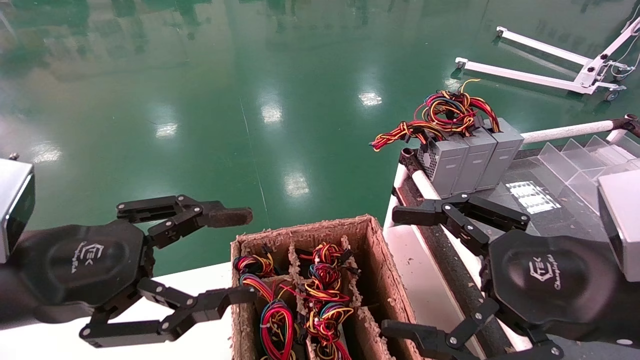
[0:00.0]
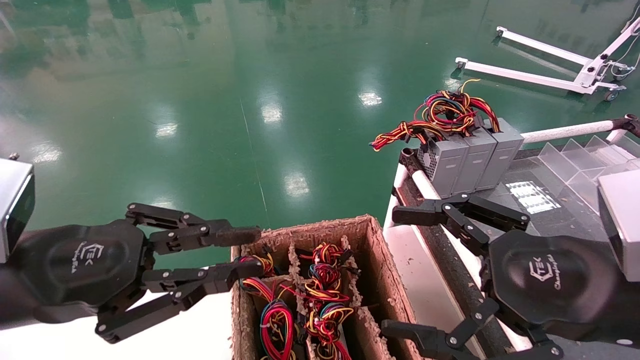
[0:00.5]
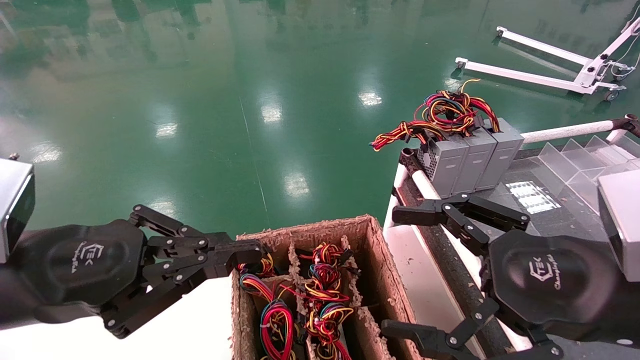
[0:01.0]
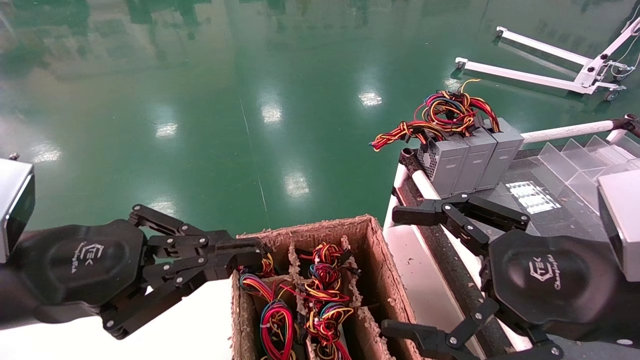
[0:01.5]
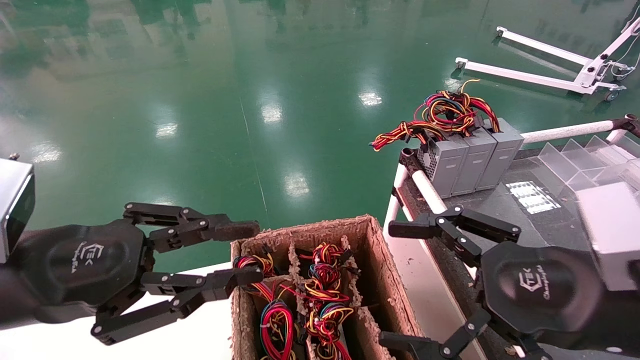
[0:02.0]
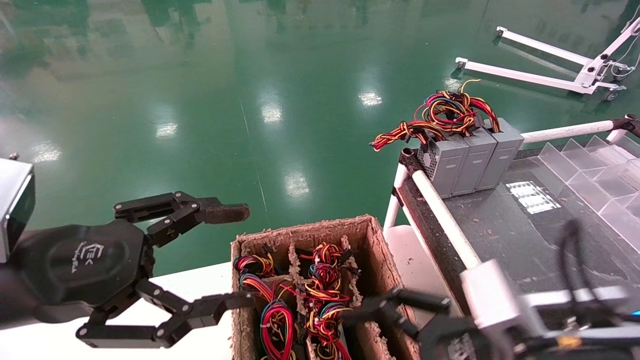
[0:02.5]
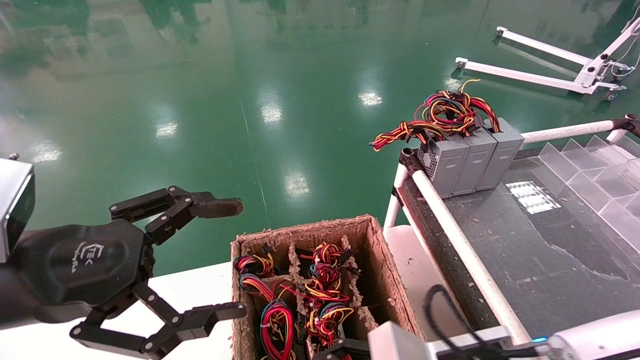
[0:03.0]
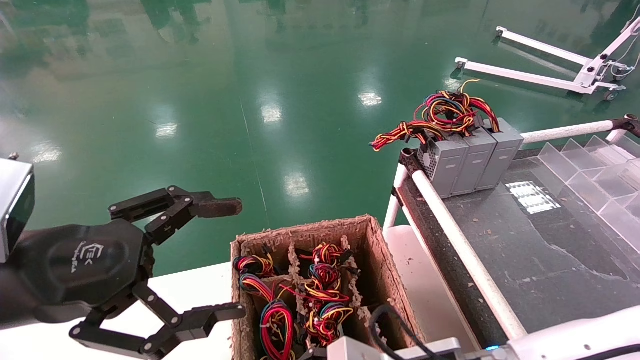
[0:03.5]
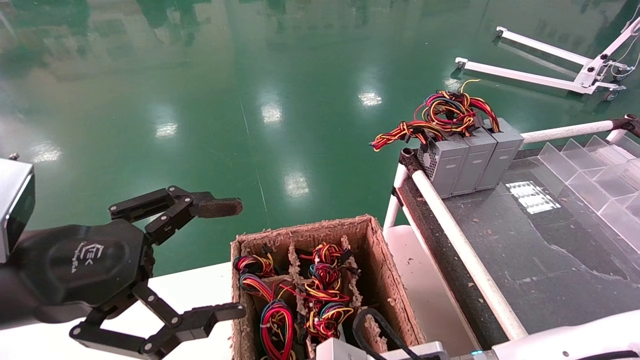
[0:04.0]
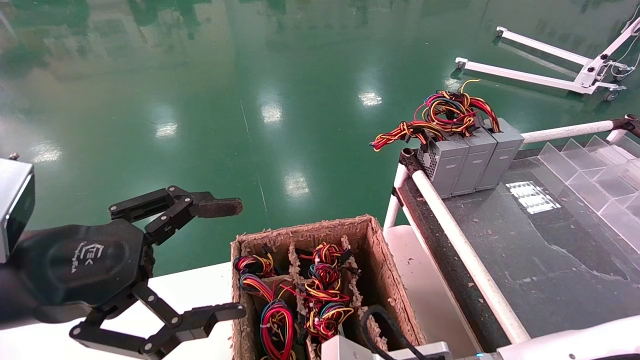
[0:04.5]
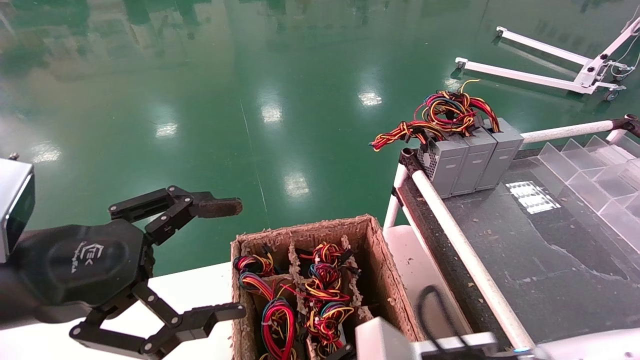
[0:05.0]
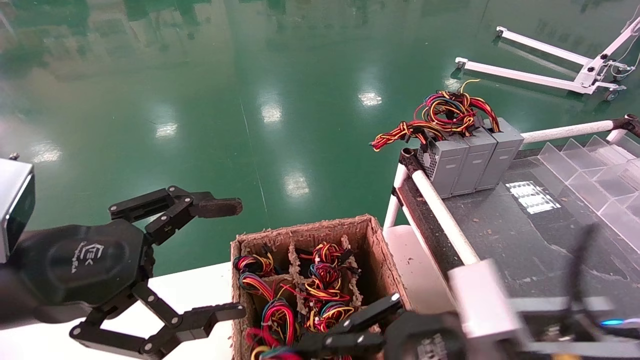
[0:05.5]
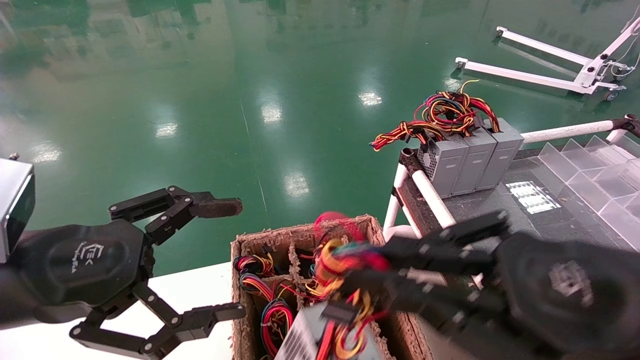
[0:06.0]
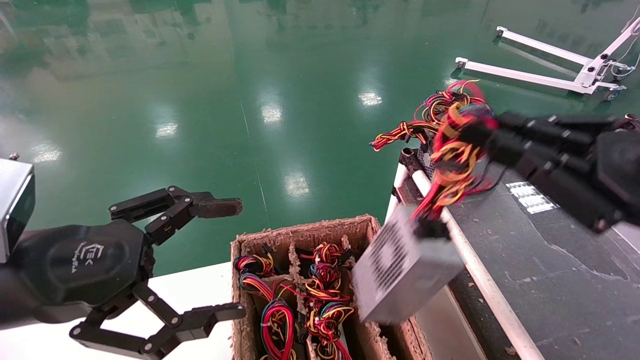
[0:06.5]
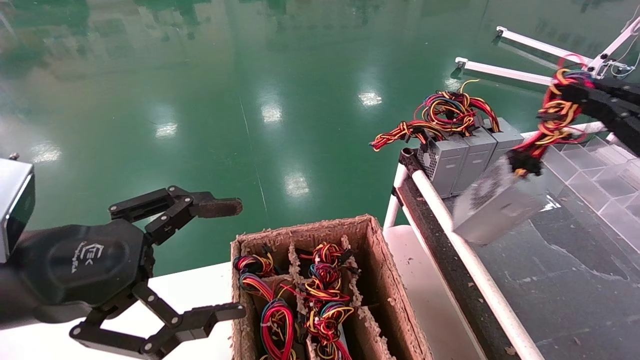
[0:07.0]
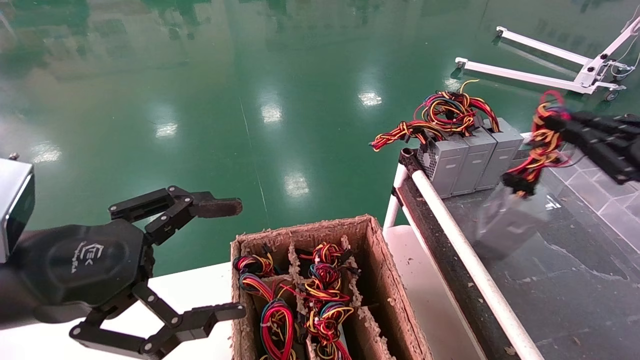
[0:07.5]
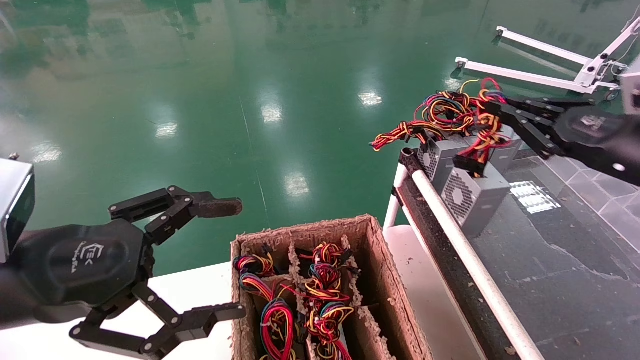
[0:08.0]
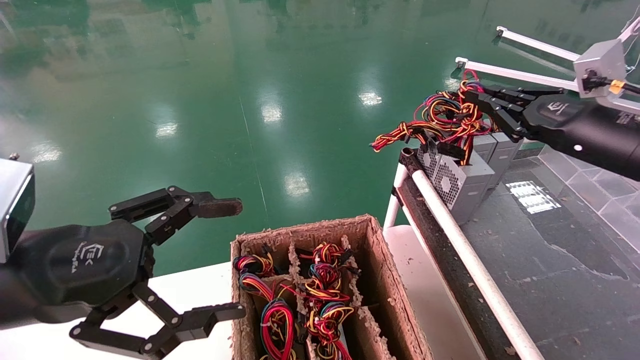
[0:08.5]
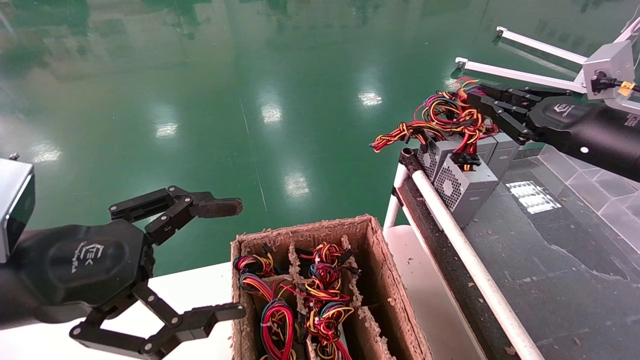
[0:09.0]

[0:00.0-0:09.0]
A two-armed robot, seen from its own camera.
Step, 0:01.0 to 0:05.0: Grab and lift the power supply from the large box.
Step, 0:05.5 to 0:08.5: Place the power supply on the operating table.
0:00.0 to 0:02.0: The left gripper closes its fingers.
0:02.0 to 0:04.5: The right gripper heads downward and to the left, covering roughly 20 cm, and closes its fingers. The left gripper opens.
0:04.5 to 0:07.0: The right gripper moves to the right and upward, roughly 35 cm.
0:07.0 to 0:09.0: The right gripper shifts some 10 cm forward.

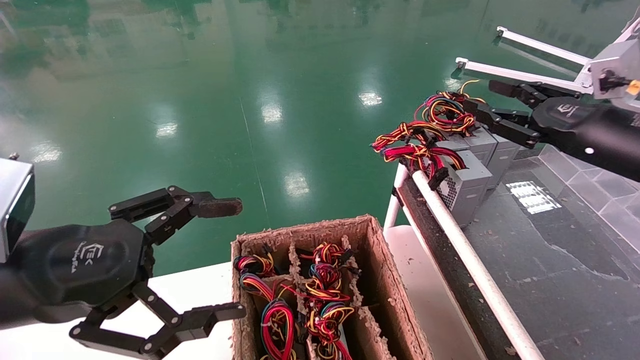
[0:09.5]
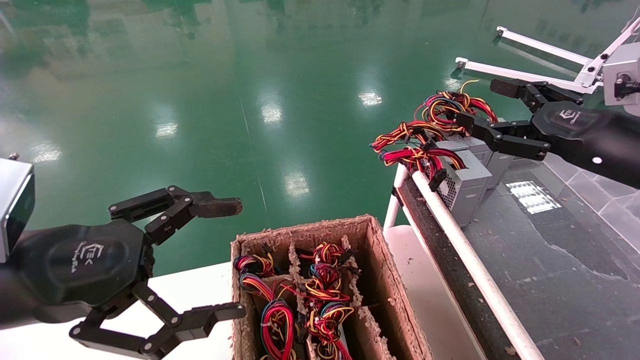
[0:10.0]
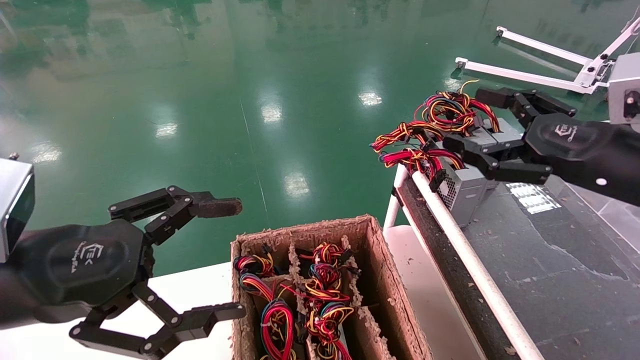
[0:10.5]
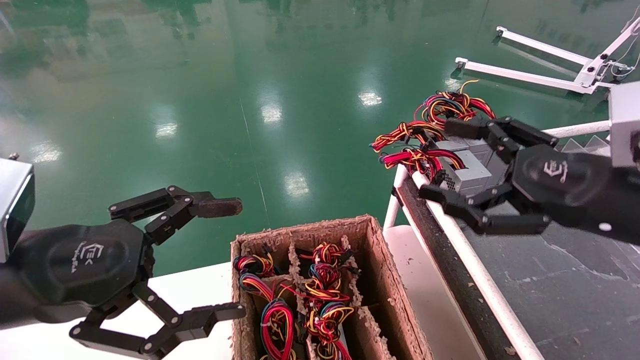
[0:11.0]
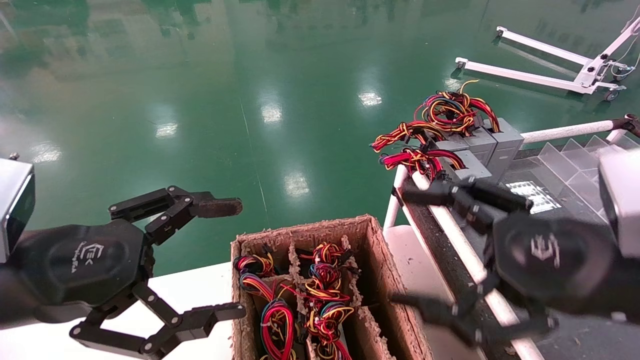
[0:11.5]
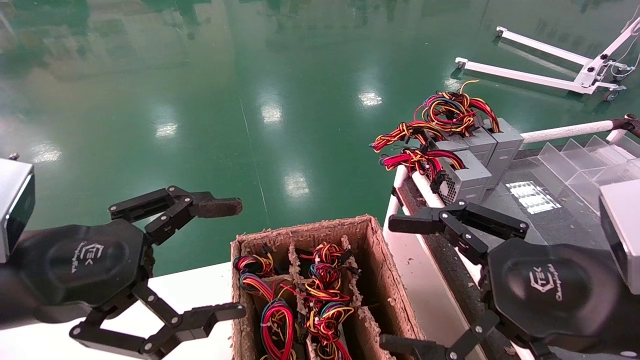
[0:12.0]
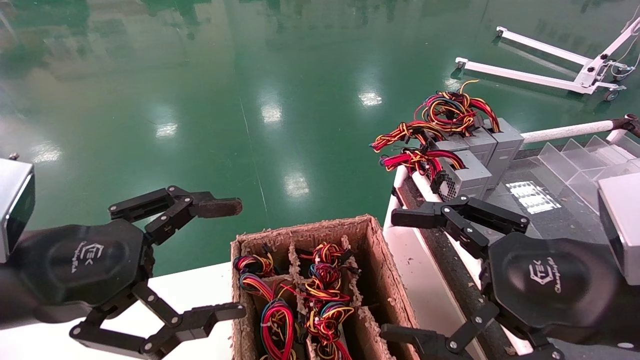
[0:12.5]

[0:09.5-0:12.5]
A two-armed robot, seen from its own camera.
0:09.5 to 0:11.0: The right gripper travels backward and to the left by approximately 10 cm, and opens.
0:11.0 to 0:12.5: The right gripper moves backward, approximately 5 cm.

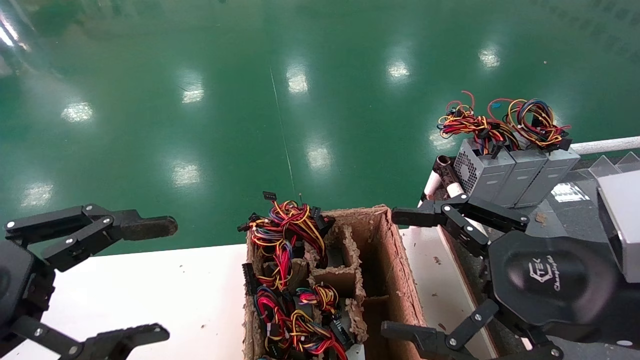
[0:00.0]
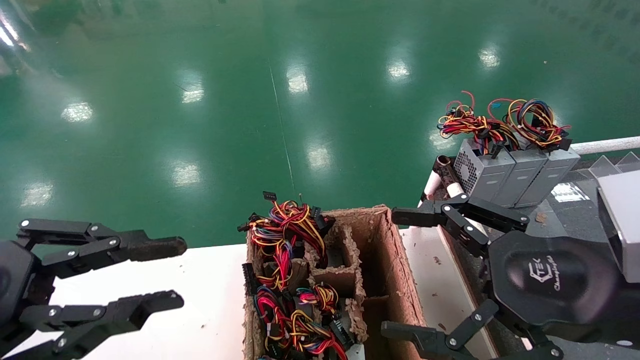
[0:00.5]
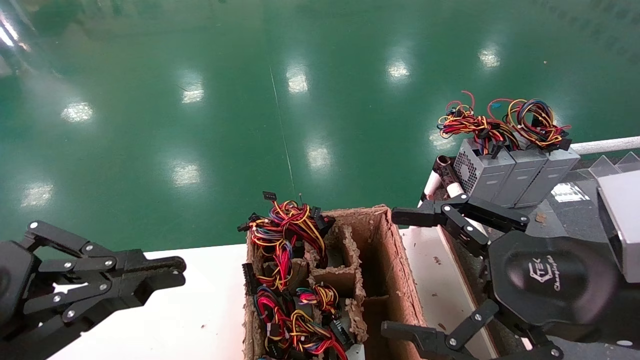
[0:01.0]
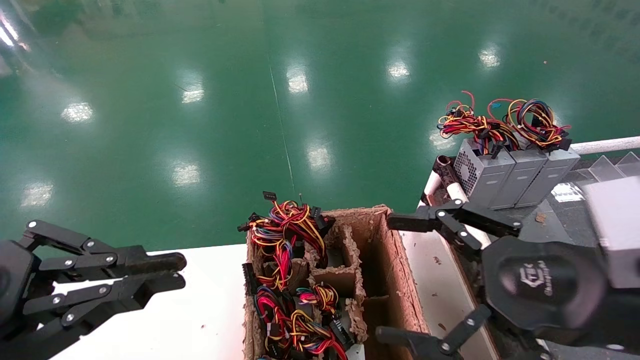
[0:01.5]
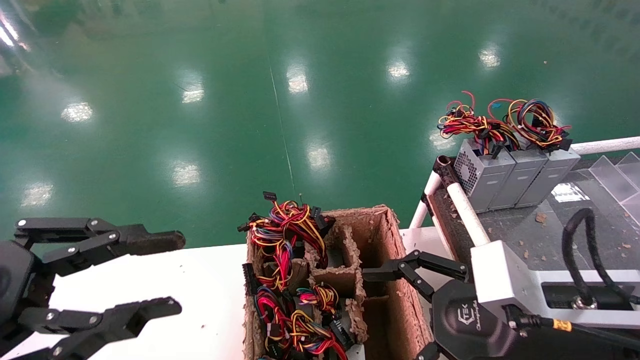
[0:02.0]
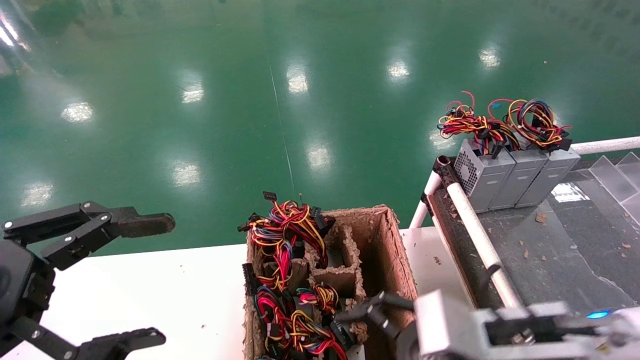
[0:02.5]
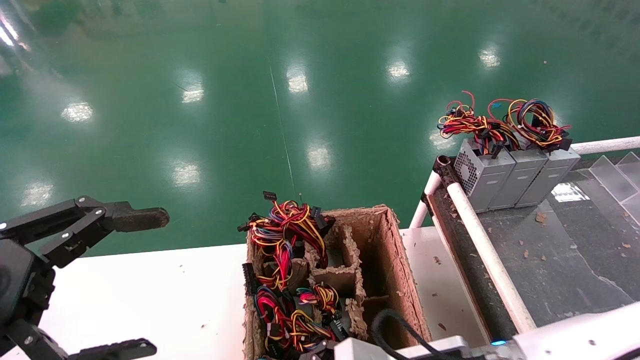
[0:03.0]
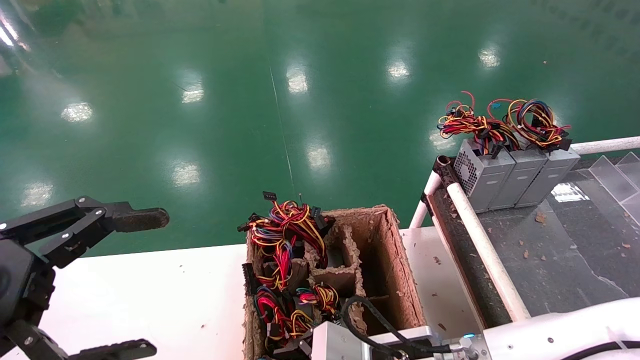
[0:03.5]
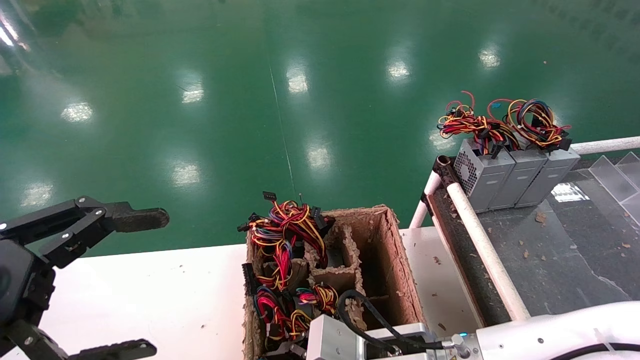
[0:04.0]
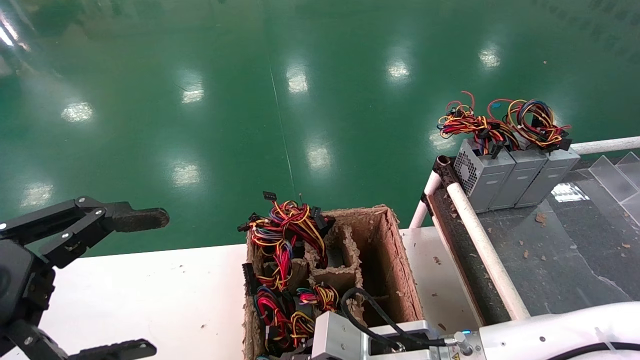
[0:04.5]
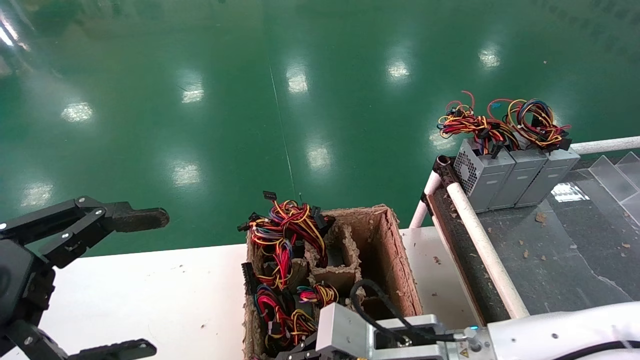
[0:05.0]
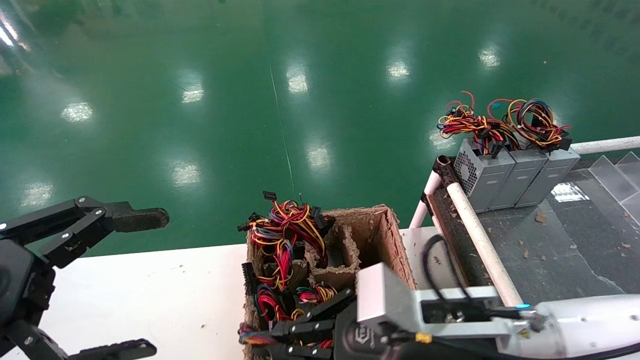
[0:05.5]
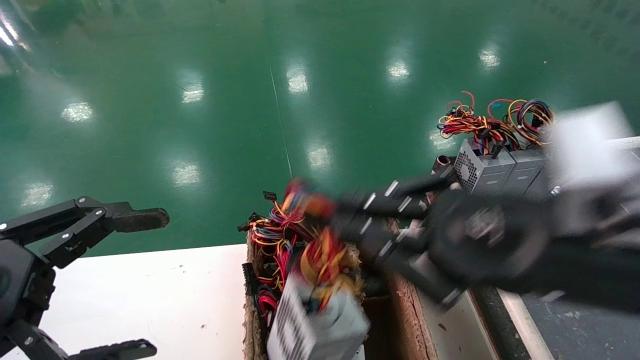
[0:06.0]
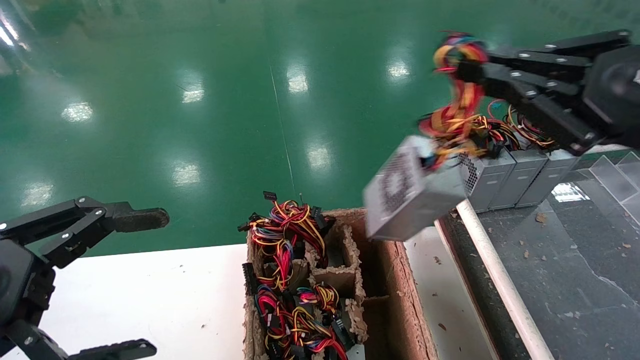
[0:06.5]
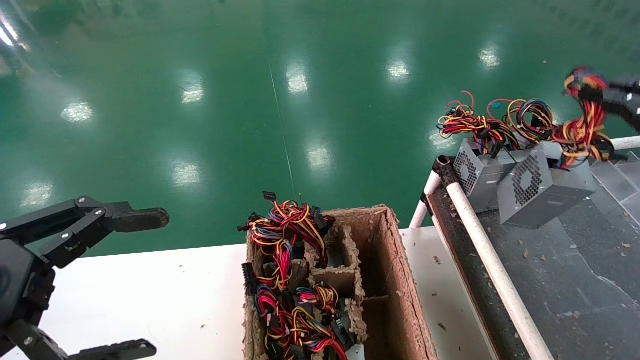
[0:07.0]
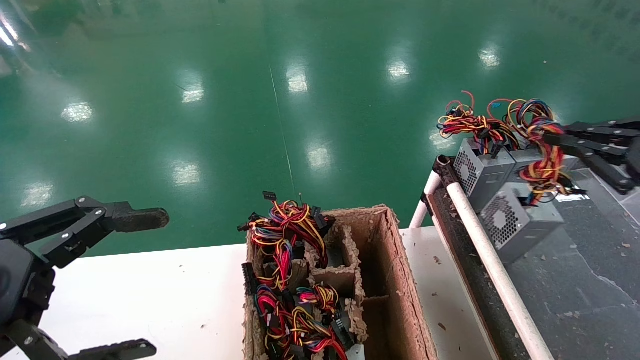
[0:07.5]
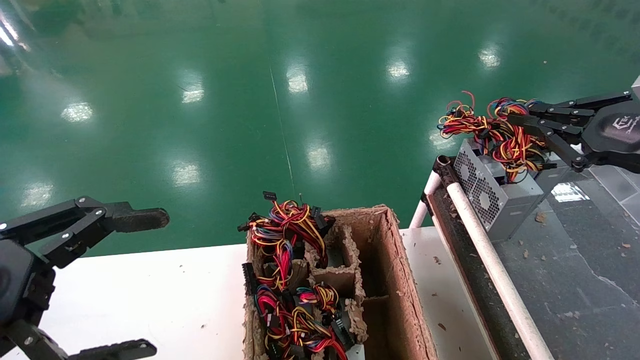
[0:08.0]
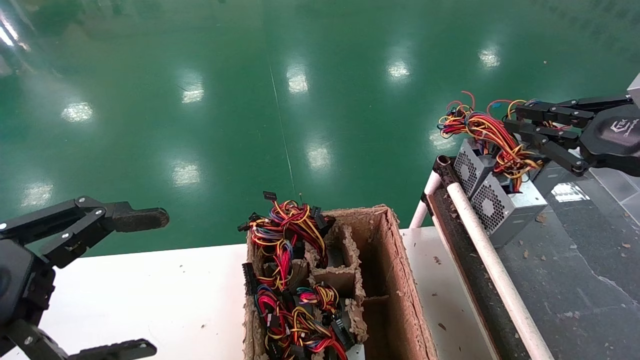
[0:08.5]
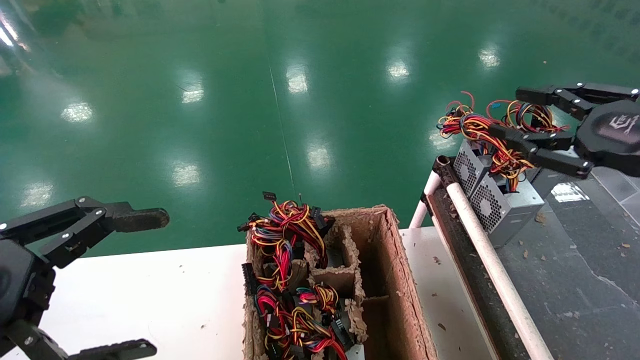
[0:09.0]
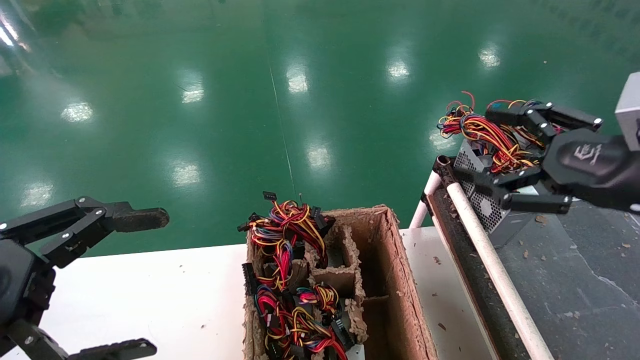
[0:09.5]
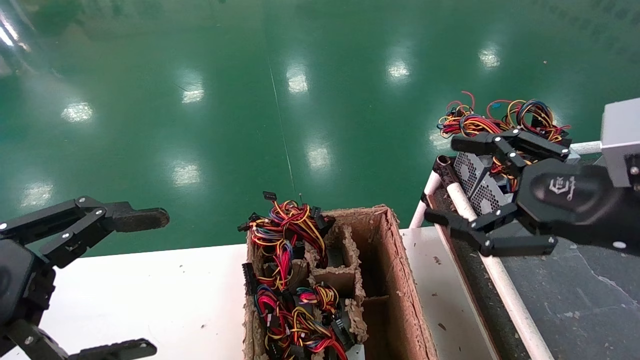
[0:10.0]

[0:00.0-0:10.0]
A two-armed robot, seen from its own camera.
Step, 0:01.5 to 0:06.0: Grab and lift the power supply from the large box.
Step, 0:06.5 to 0:09.0: Place the power supply on the operating table.
0:00.0 to 0:02.0: The left gripper closes. The right gripper ends up approximately 5 cm from where it was.
0:02.0 to 0:04.0: The right gripper heads to the left, downward and forward, covering roughly 20 cm, while the left gripper opens up.
0:04.0 to 0:06.0: The right gripper heads upward and to the right, covering about 20 cm, and closes up.
0:06.0 to 0:08.0: The right gripper heads to the right and forward, covering about 20 cm.
0:08.0 to 0:10.0: The right gripper is displaced to the left by approximately 10 cm, and opens its fingers.
